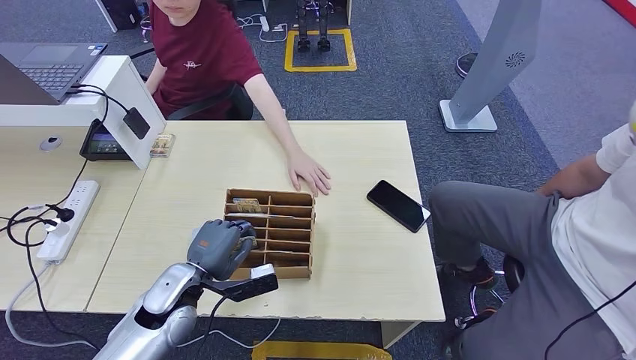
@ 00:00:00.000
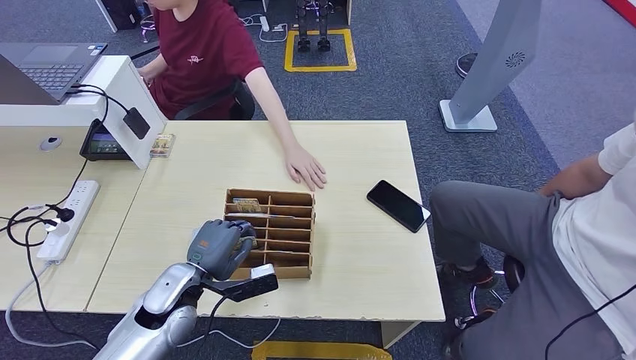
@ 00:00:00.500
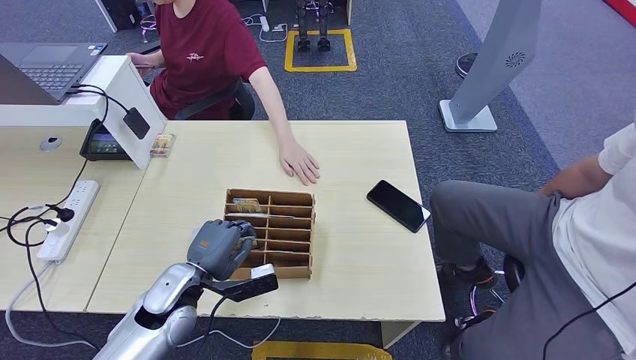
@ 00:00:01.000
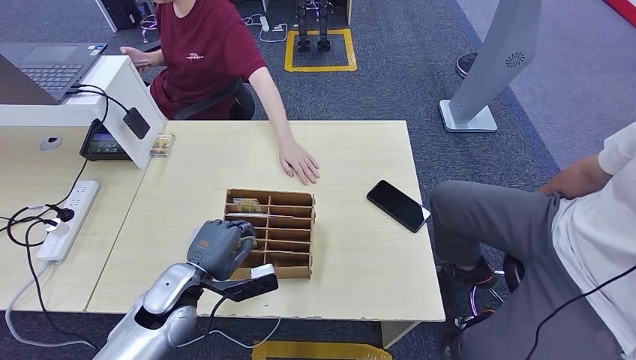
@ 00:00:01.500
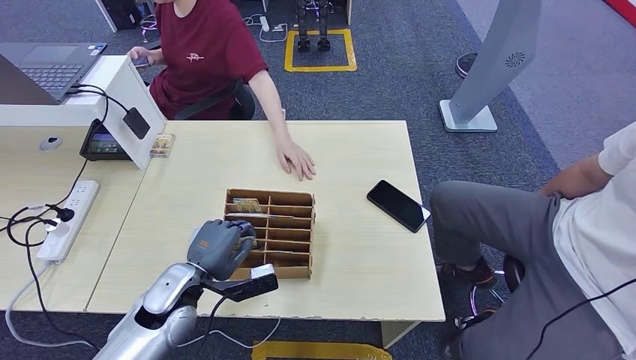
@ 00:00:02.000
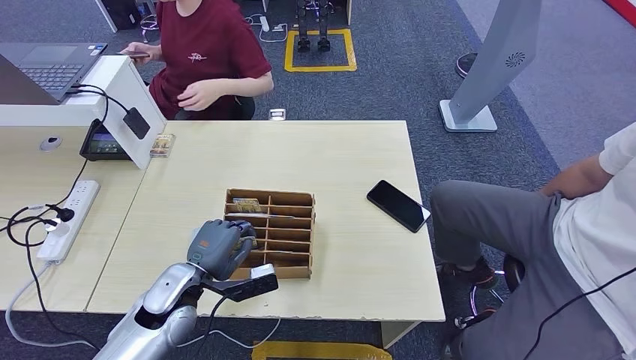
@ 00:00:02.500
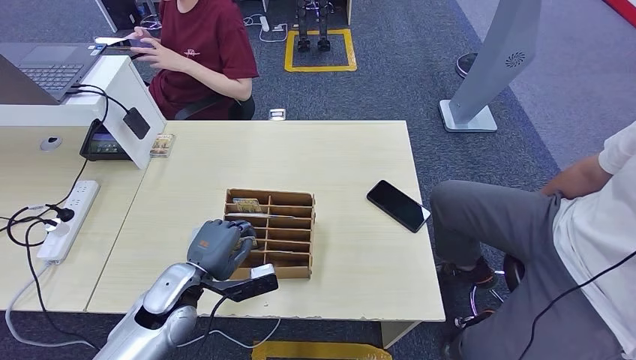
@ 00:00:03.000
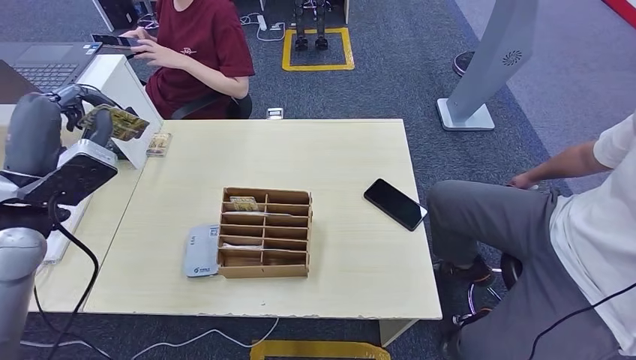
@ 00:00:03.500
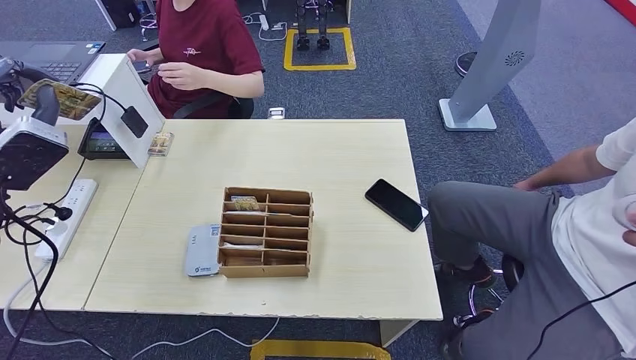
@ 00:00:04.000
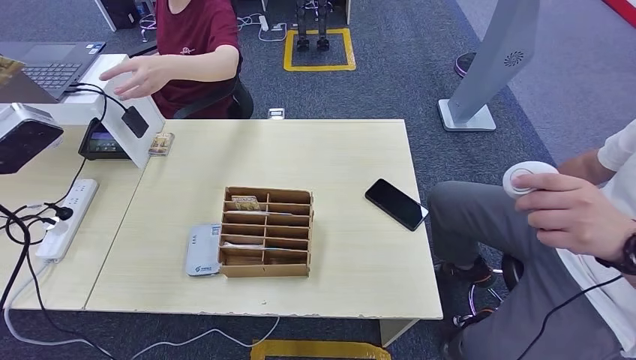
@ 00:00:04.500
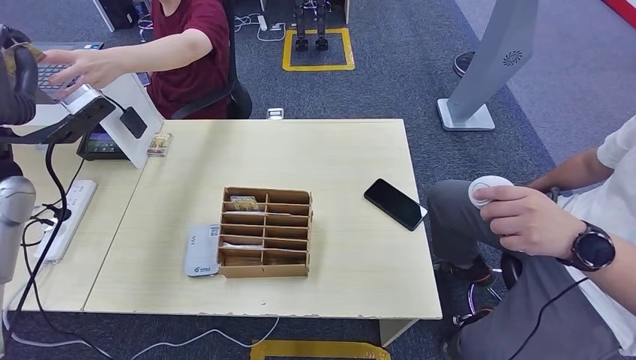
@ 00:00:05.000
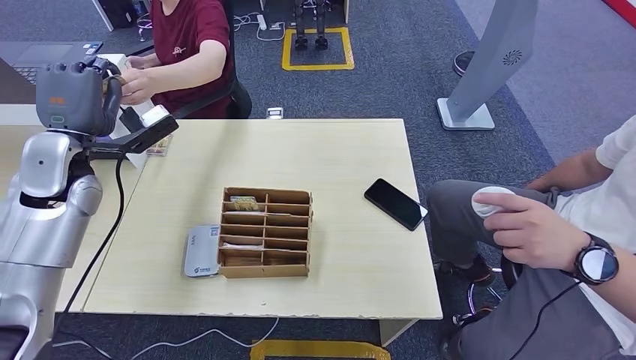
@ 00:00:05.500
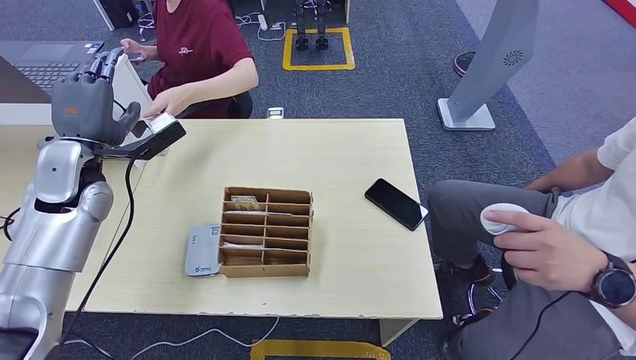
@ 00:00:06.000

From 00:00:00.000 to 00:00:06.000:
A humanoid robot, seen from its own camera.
Step, from 00:00:00.000 to 00:00:03.500: Pick up the room key from the key card box.
Step, from 00:00:04.000 to 00:00:06.000: Hand the room key to the person.
From 00:00:00.000 to 00:00:02.000: Both hands stay put.
From 00:00:02.000 to 00:00:04.000: The right hand shifts roughly 5 cm backward. The left hand is displaced upward and to the left by approximately 30 cm.
From 00:00:04.000 to 00:00:06.000: The left hand travels forward and downward by approximately 10 cm.
